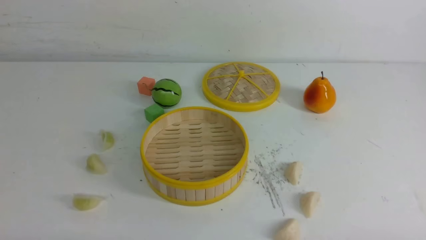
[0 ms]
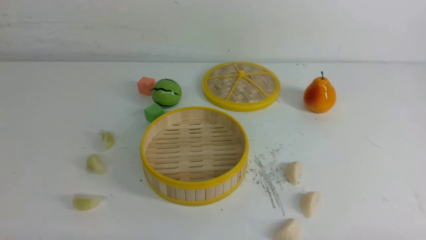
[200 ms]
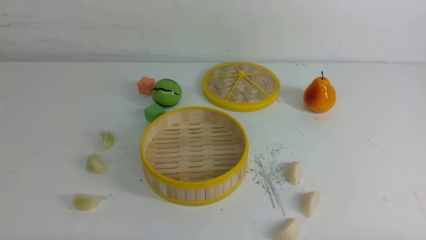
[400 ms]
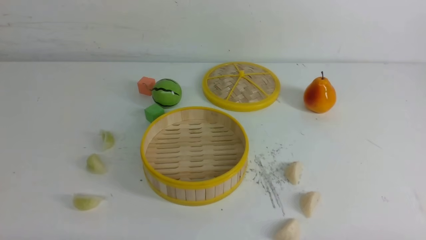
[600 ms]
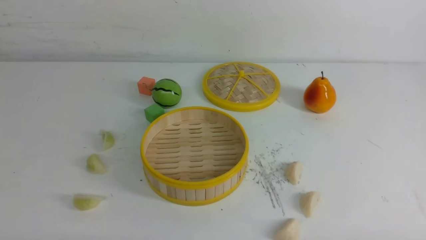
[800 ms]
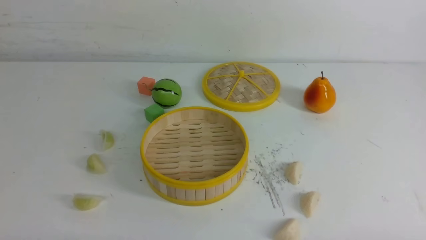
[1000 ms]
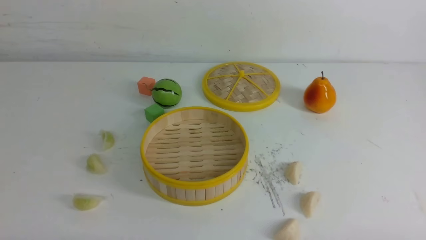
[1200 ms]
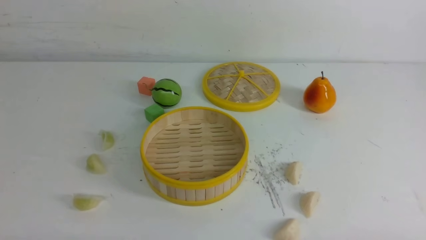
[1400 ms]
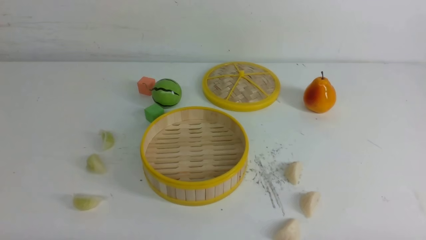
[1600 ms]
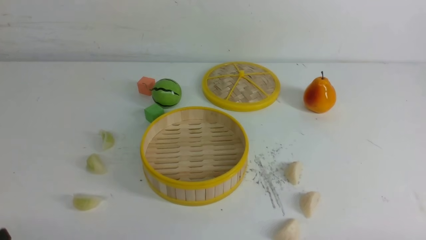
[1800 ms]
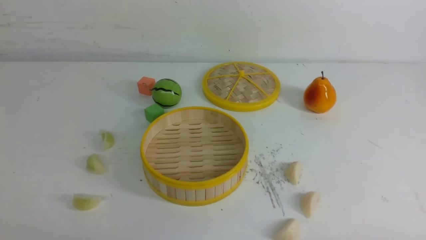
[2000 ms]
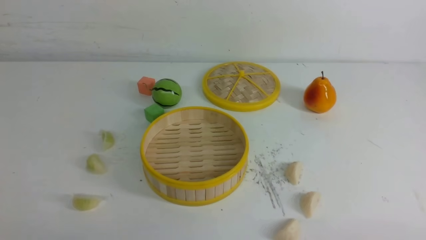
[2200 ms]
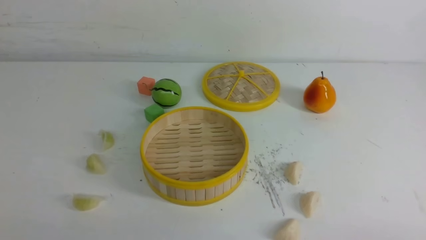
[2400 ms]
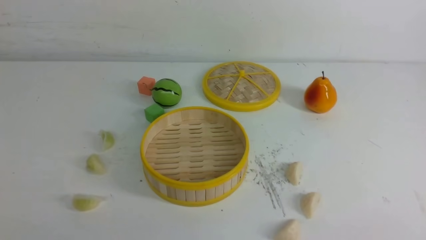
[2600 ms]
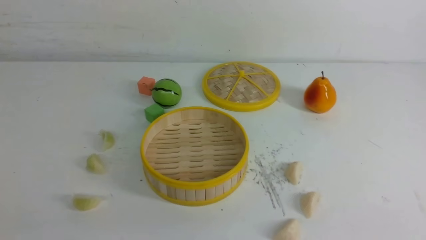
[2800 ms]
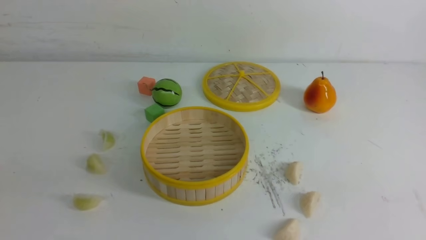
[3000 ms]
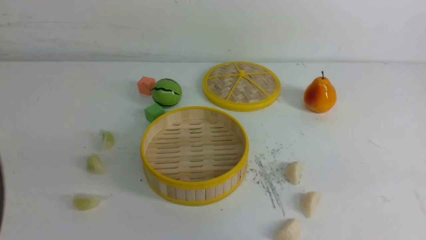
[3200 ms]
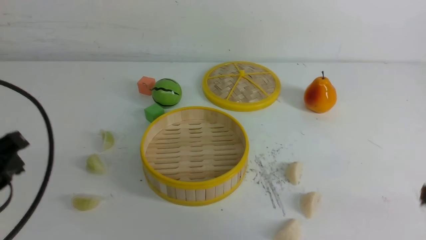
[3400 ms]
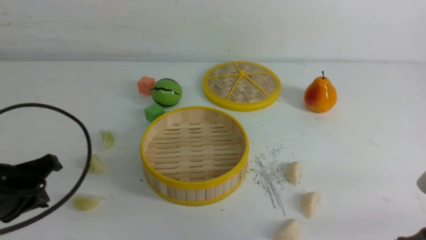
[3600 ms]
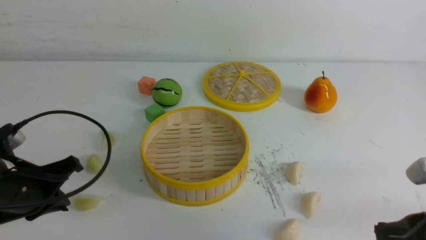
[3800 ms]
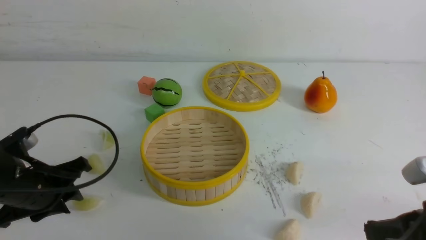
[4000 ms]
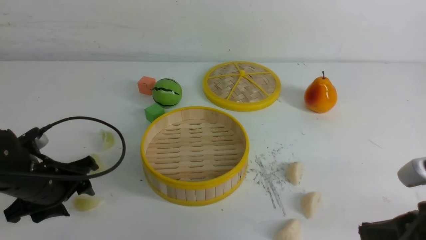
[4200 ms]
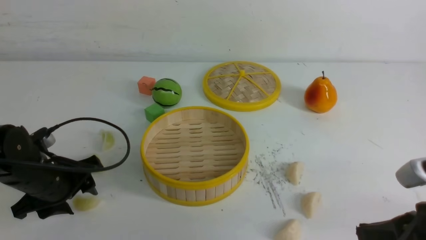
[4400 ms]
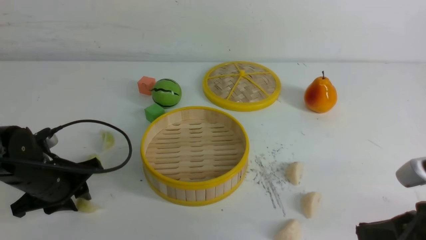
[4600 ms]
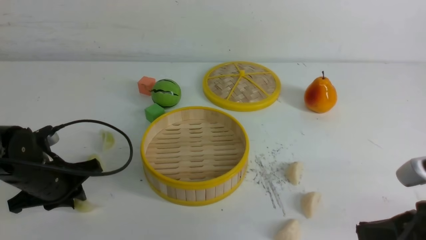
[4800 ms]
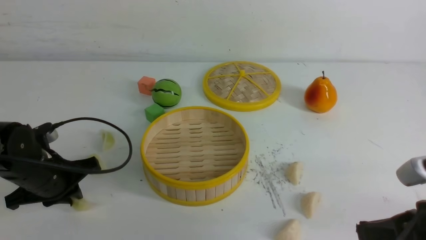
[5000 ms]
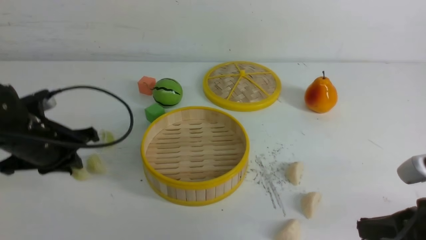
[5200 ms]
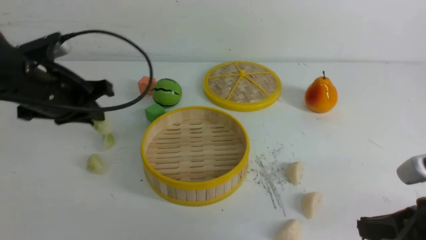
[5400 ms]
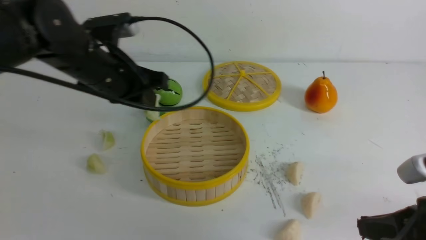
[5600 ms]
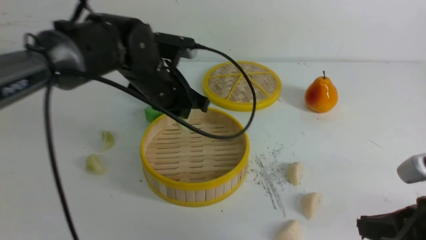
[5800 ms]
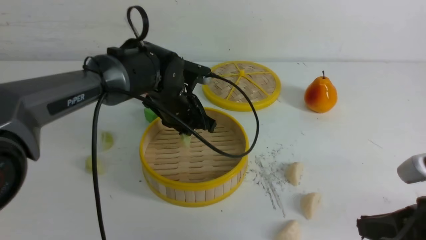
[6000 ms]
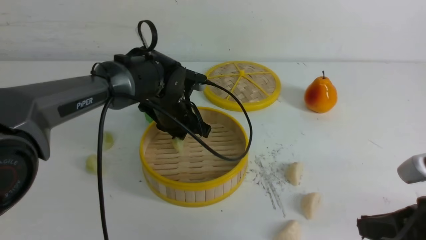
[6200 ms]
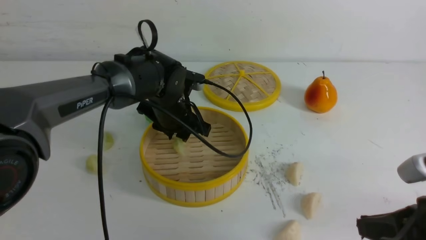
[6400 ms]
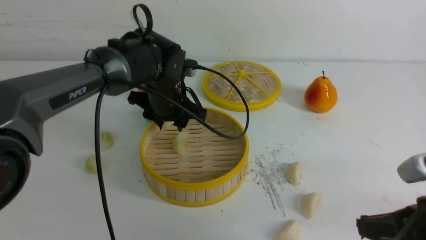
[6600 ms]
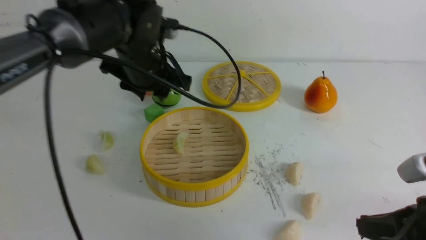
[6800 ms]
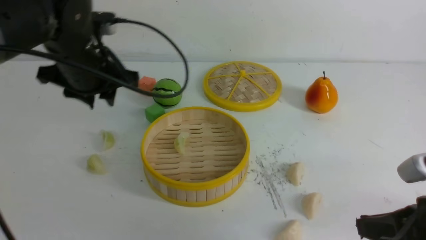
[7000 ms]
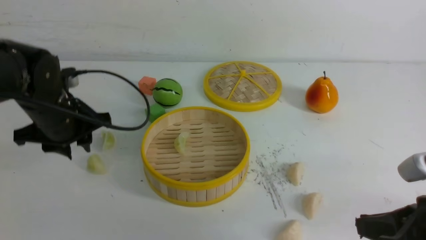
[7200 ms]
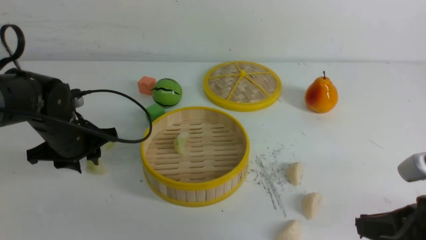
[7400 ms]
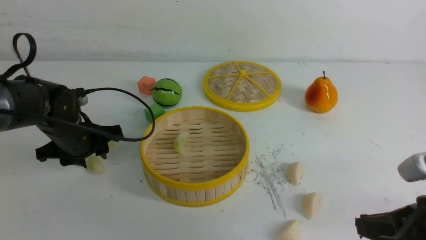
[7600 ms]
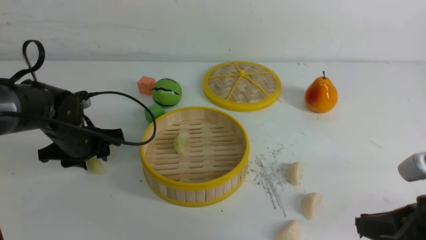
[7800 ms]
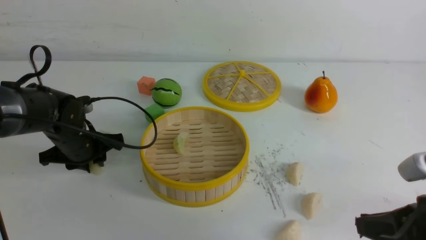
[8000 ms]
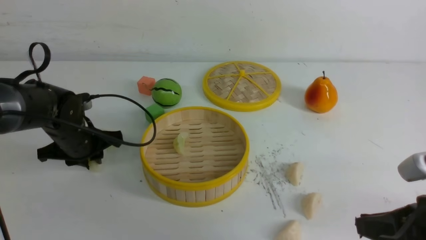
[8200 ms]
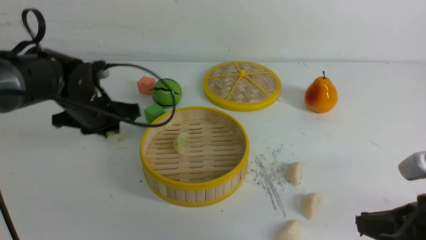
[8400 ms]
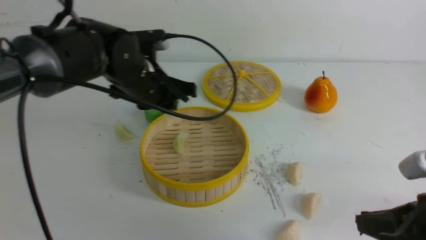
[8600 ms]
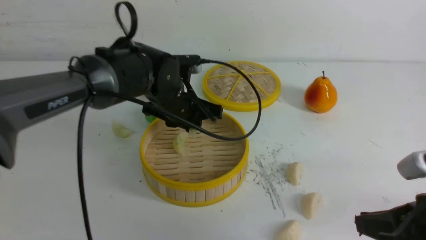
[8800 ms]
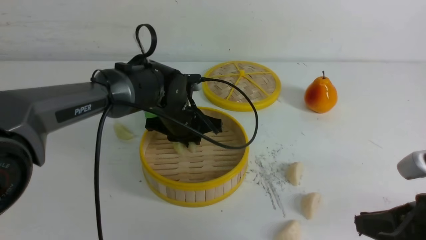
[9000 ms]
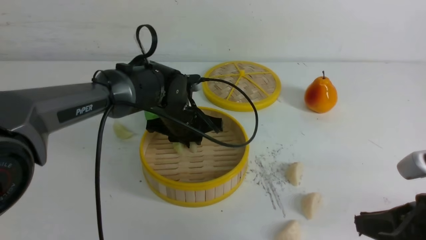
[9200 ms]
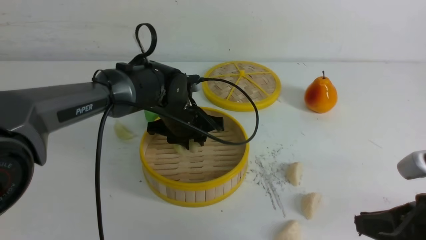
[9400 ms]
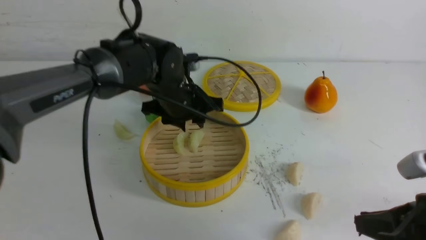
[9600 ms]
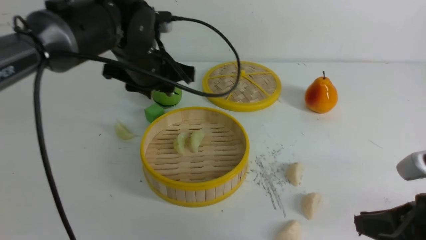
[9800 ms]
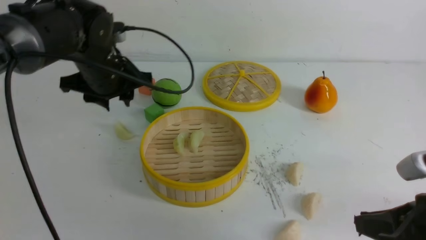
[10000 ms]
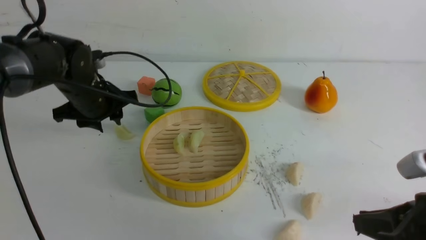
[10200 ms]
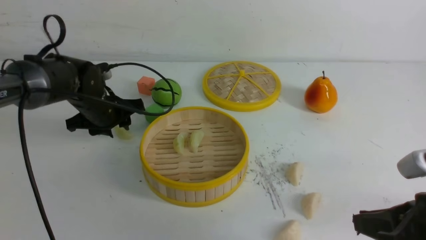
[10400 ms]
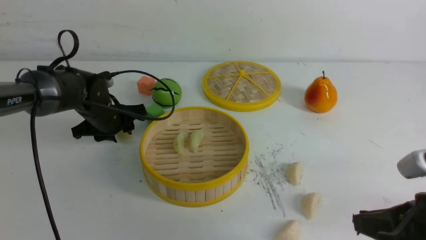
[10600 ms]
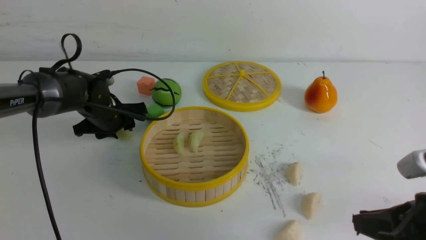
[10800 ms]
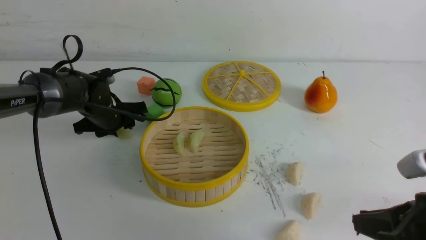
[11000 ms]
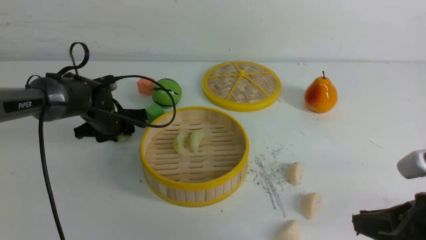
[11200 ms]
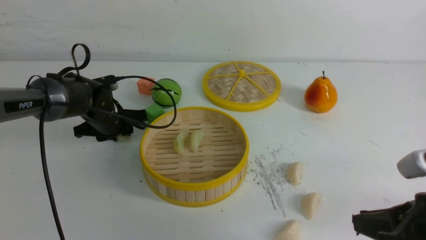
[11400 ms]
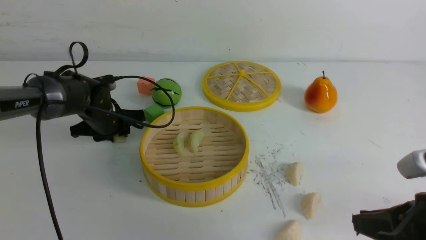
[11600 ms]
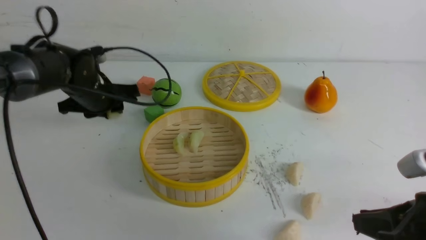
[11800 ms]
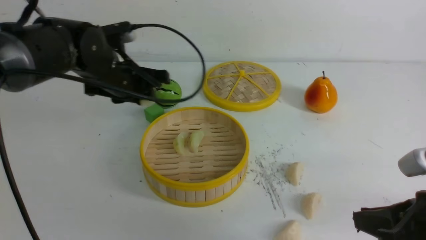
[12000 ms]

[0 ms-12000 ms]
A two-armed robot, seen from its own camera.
Task of the whole recording: put the dumplings into the steamer on the white table.
Step, 0 ms to 5000 ms: use the left arm to grab a dumpling.
Step, 5200 ms to 6400 ms: use the left arm to put the dumpling into the steamer.
Step, 6600 ms to 8200 ms: use the left arm to grab a dumpling.
Step, 8400 ms to 9400 ms: use the left arm to put the dumpling into the steamer.
Step, 9600 ms to 11400 ms: use the left arm to grab a dumpling.
3000 ms to 4400 ms: The left gripper moves forward and downward, approximately 25 cm, and opens up. Meanwhile the right gripper shifts roughly 10 cm forward, downward and to the left.
4400 ms to 6000 ms: The left gripper heads to the right and forward, covering approximately 20 cm, and closes up.
6000 ms to 7600 ms: The left gripper travels to the left by about 15 cm, and opens up.
7600 ms to 9000 ms: The left gripper goes approximately 15 cm to the right, and closes its fingers.
9000 ms to 10400 ms: The left gripper shifts roughly 15 cm to the left, and opens its fingers.
10400 ms to 12000 ms: The left gripper shifts about 10 cm to the right and upward.

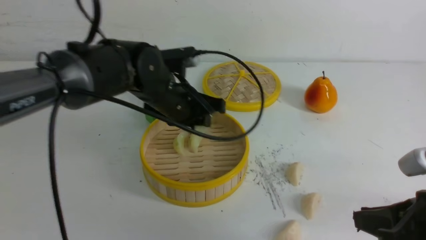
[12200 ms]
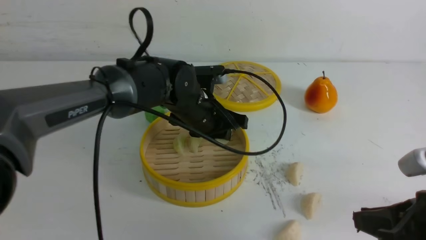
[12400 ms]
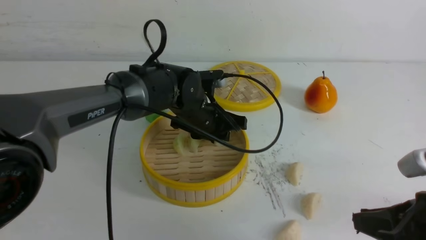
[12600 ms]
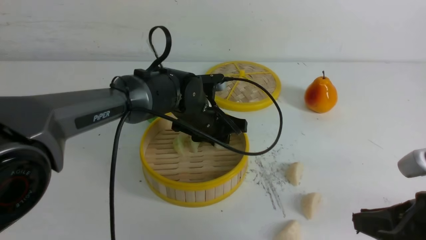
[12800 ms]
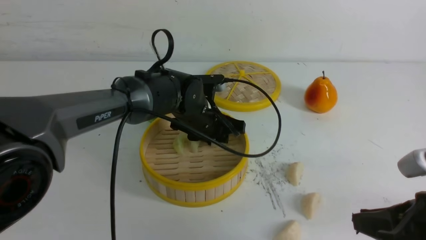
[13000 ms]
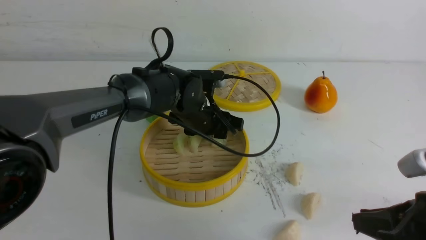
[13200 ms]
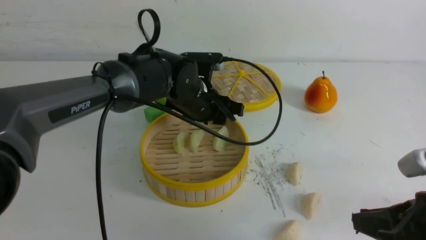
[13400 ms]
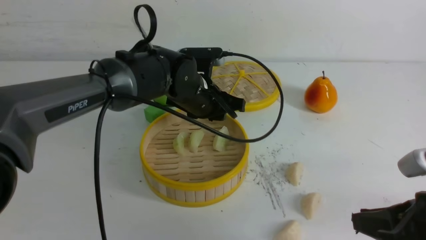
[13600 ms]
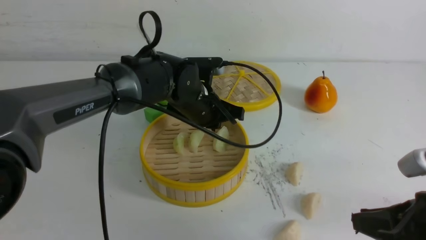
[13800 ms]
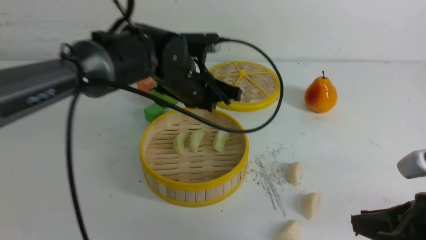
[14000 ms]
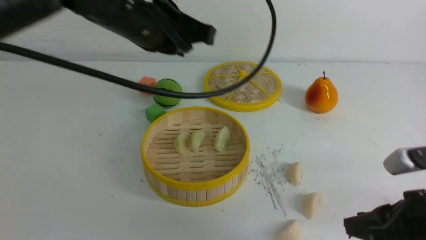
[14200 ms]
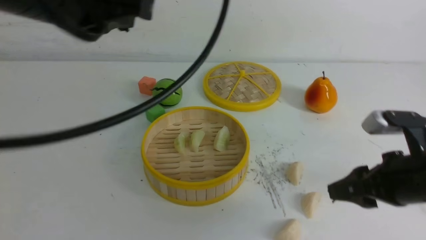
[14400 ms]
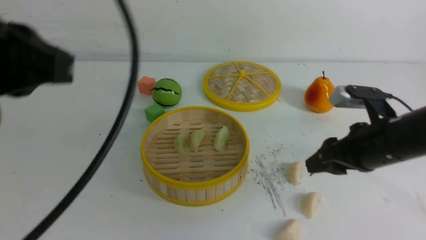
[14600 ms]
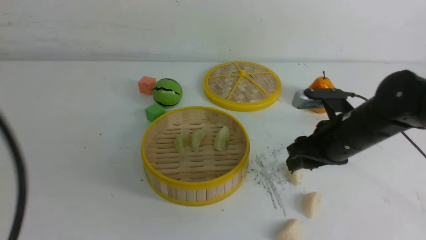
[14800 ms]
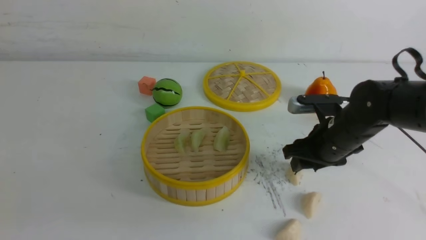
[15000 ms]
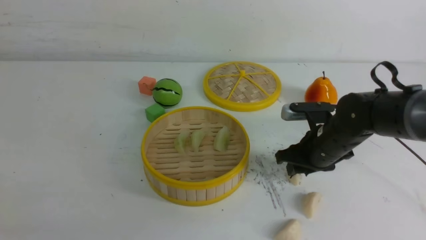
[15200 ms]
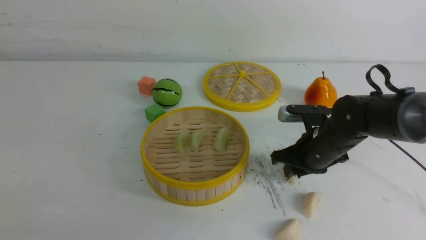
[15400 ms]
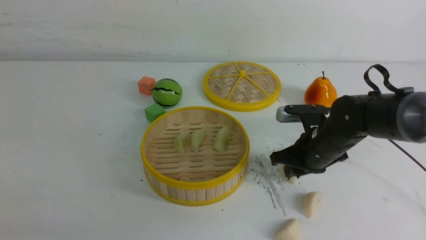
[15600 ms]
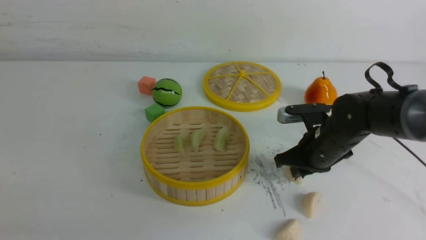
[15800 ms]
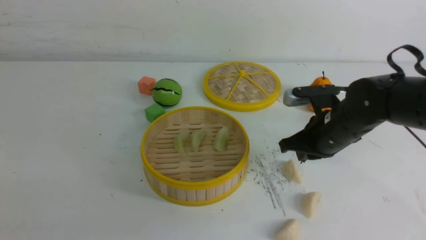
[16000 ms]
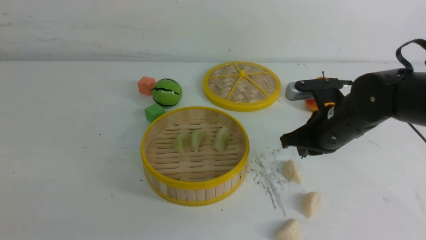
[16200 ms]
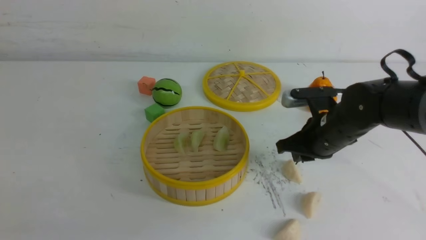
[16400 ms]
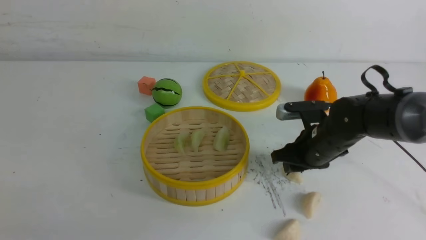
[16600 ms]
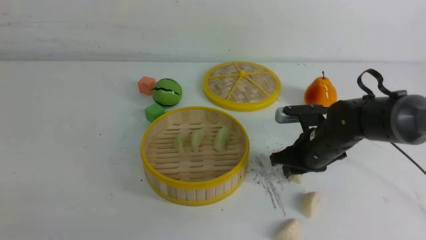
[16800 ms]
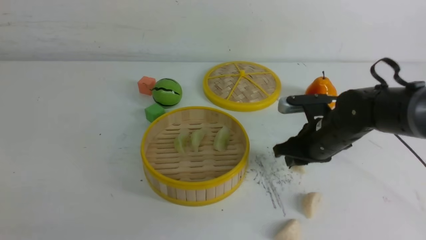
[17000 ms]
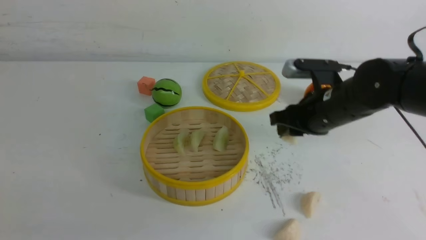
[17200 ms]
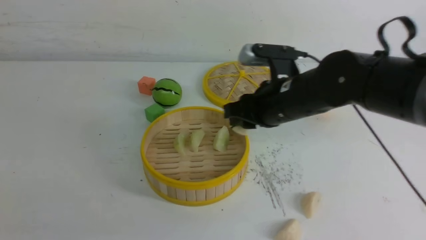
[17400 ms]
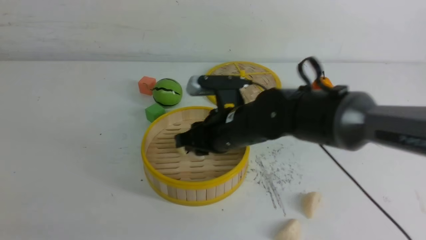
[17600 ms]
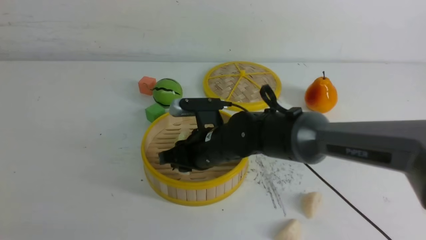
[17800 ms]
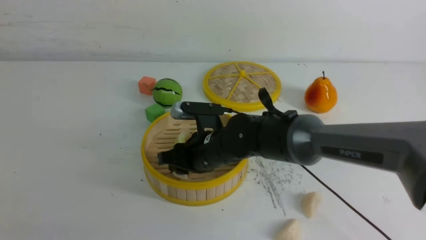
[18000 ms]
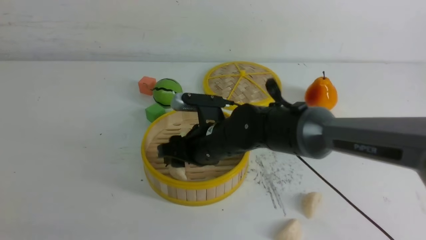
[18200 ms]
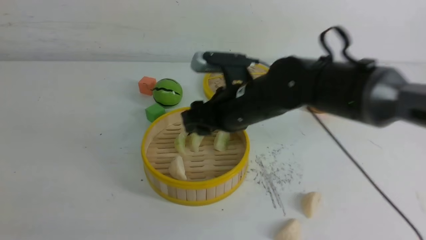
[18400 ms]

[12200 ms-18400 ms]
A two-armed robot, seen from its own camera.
Task of the whole recording: put the dumplings into the steamer on the white table.
Step, 12200 ms to 13200 ms: use the left arm to put the dumpling into the steamer.
Step, 13400 ms to 17000 ms: use the right arm to grab a dumpling.
Step, 17200 ms to 18000 ms: use the right arm to put the dumpling into the steamer.
12200 ms to 13800 ms: The left gripper closes up.
13800 ms to 15400 ms: The right gripper heads forward, covering approximately 20 cm, and opens and closes again. Meanwhile the left gripper is displaced backward and to the left by some 40 cm.
15400 ms to 16800 ms: The right gripper closes and opens again.
16800 ms to 18400 ms: The right gripper moves to the left and upward, approximately 15 cm, and opens up.
